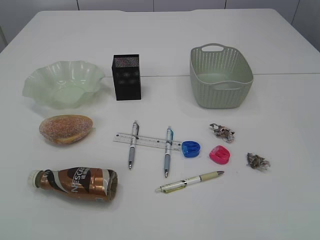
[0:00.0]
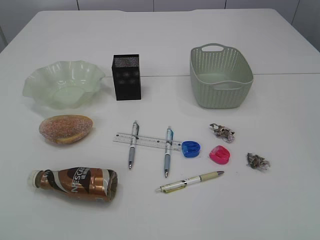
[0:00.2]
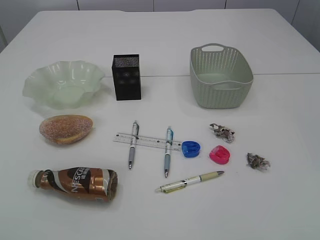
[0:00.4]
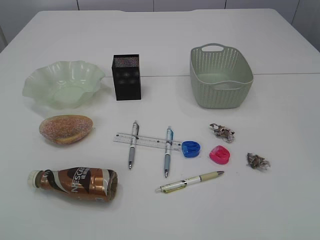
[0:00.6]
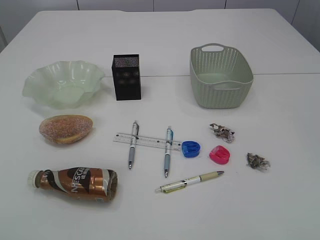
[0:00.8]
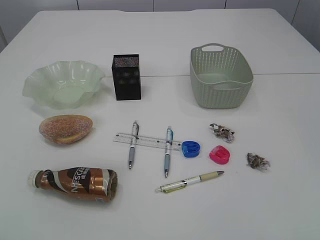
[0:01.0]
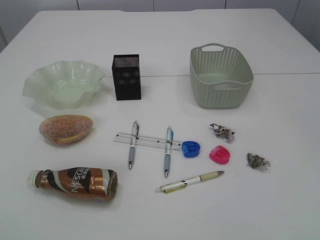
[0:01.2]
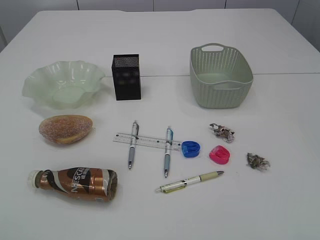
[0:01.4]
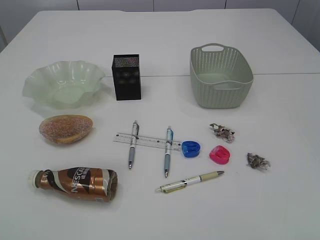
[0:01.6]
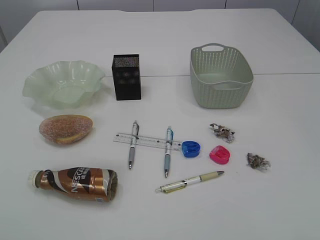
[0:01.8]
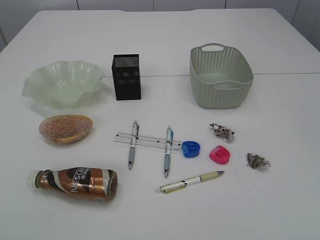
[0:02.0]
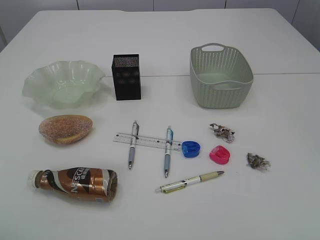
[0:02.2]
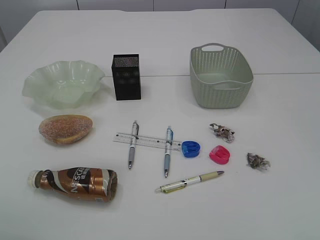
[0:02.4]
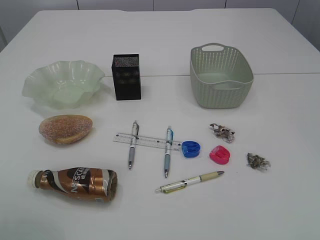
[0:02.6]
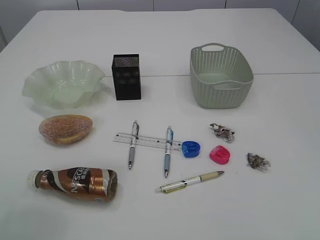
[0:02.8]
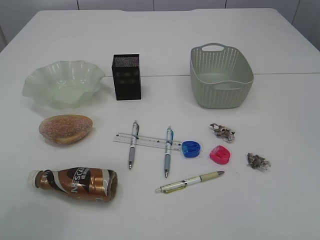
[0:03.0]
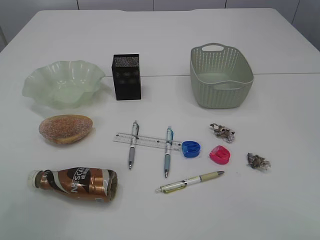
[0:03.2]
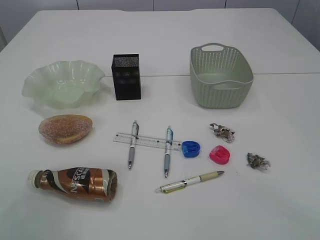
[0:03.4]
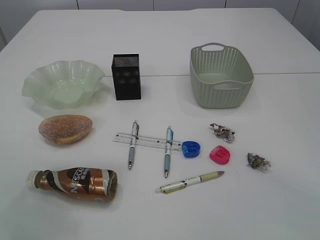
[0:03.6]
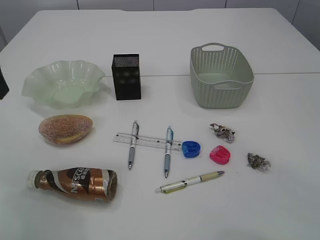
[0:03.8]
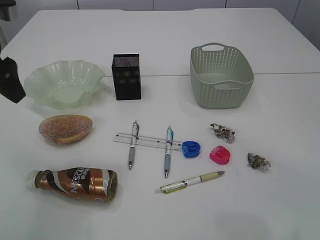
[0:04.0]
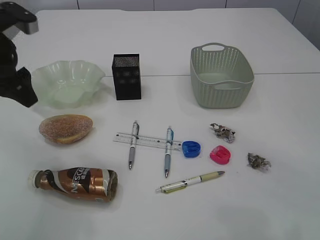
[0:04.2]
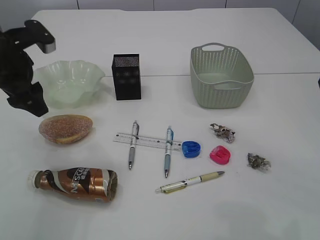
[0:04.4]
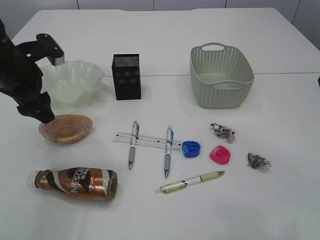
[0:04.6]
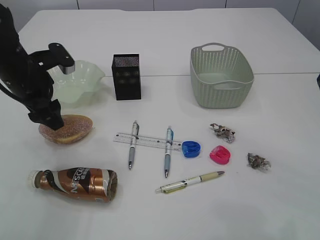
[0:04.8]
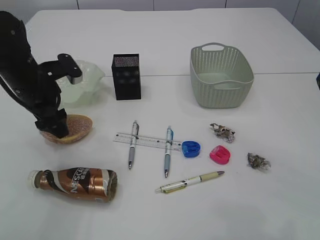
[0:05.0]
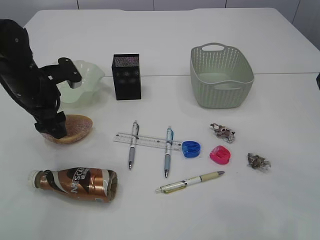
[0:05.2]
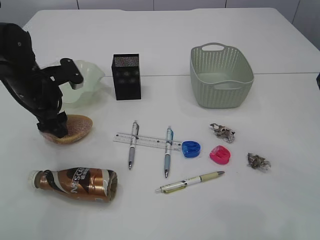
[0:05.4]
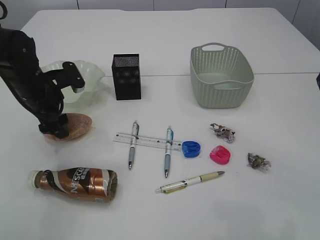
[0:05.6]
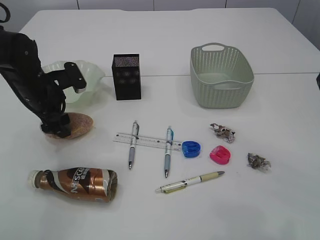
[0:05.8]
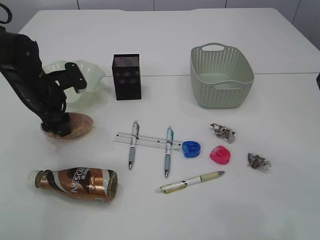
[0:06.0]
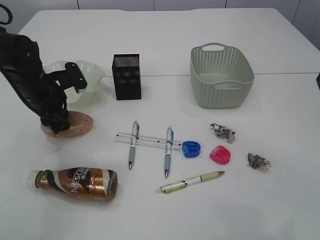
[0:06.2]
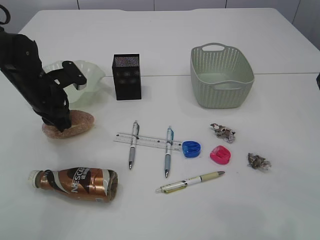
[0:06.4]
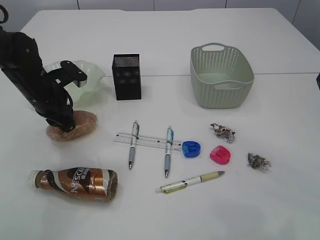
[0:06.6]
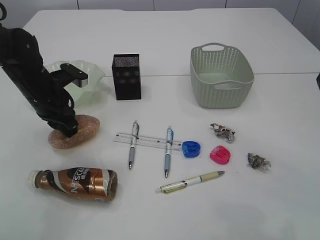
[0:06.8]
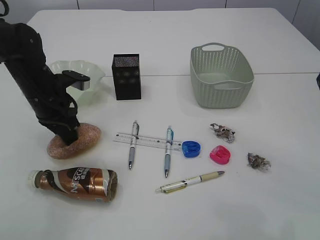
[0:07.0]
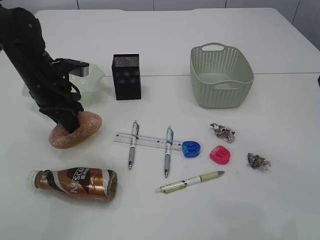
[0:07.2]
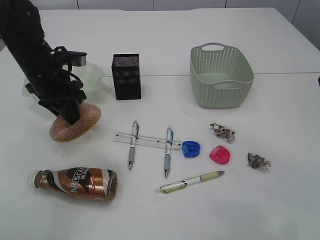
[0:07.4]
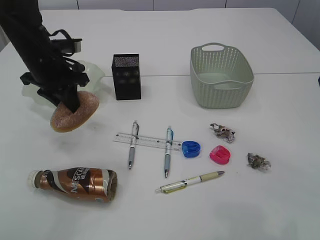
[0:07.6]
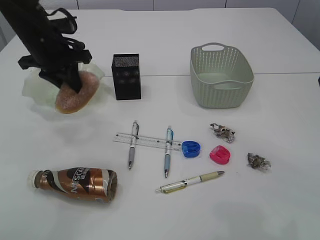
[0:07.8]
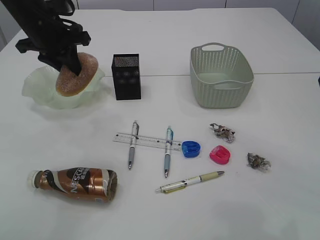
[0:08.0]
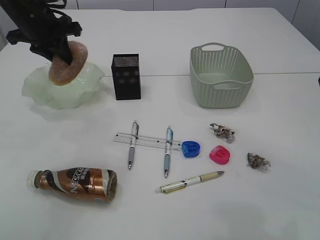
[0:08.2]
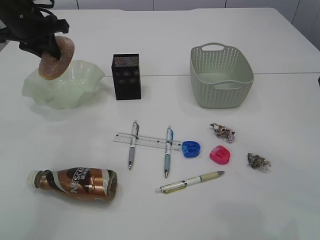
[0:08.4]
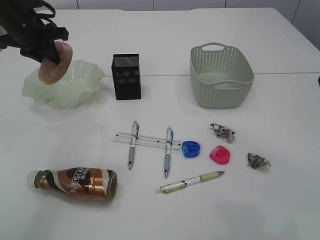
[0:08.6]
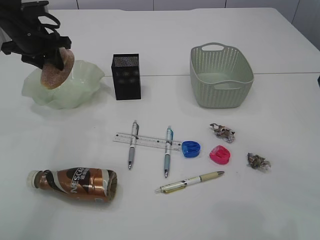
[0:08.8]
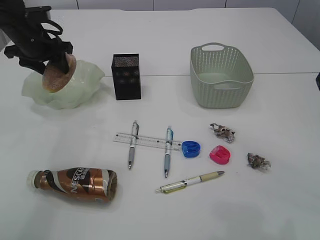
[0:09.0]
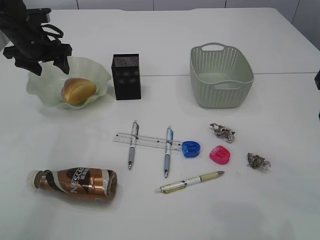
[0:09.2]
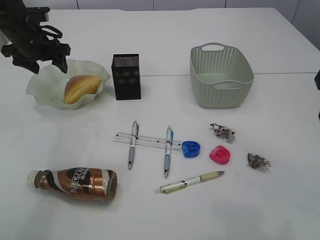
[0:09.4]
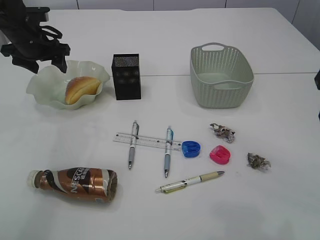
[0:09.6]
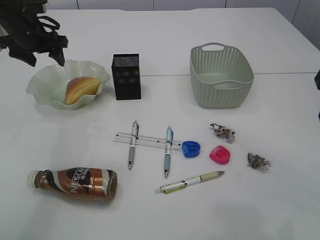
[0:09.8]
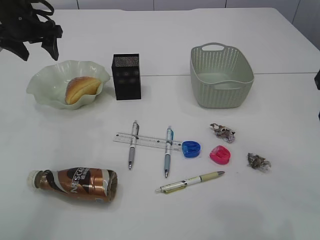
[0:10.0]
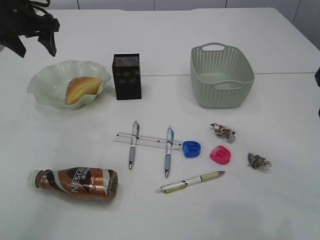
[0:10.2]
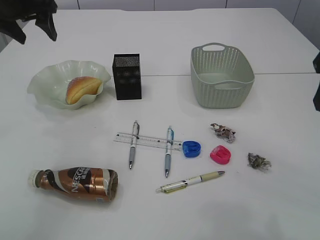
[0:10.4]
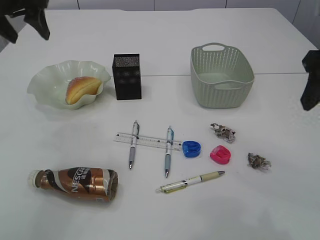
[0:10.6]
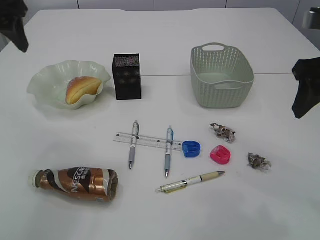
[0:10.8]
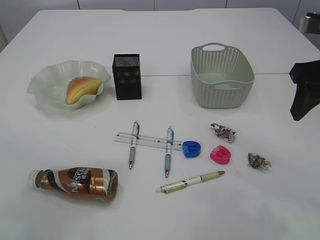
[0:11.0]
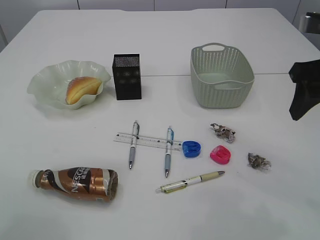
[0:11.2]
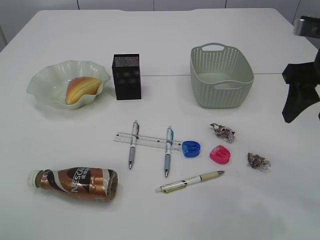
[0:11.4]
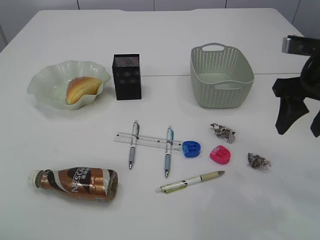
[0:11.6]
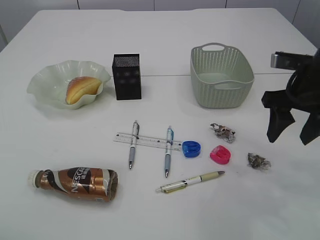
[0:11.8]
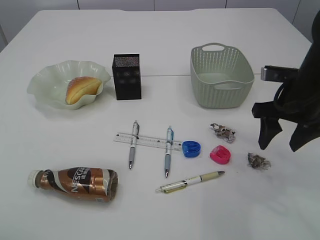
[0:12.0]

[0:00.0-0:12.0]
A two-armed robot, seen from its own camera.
Step, 0:07.8 to 0:10.0: place the bread in the plate.
0:01.6 to 0:03.0: The left gripper shifts roughly 20 cm forward.
0:03.0 to 0:04.4: The left gripper goes about 15 cm downward and forward.
0:04.4 to 0:06.0: The left gripper shifts approximately 10 cm downward.
0:06.0 to 0:07.6: The left gripper travels upward by about 5 cm, and closes.
0:07.6 to 0:09.0: The left gripper is displaced forward and to the left by approximately 10 cm, and opens its fingers.
0:09.0 to 0:10.4: The left gripper travels upward by some 10 cm.
0:10.4 to 0:12.0: The right gripper heads downward and forward, covering approximately 15 cm; the left gripper travels backward by about 30 cm.

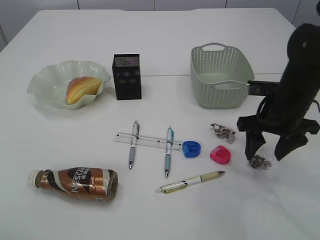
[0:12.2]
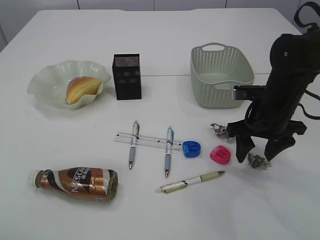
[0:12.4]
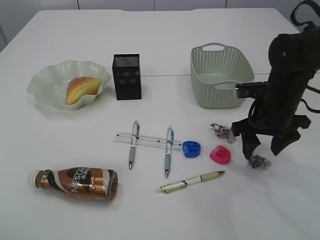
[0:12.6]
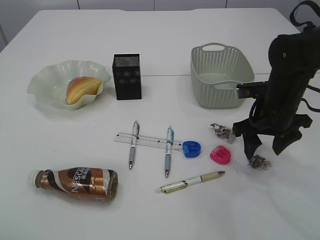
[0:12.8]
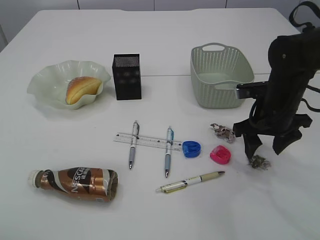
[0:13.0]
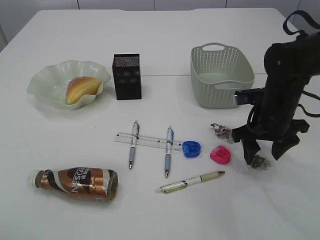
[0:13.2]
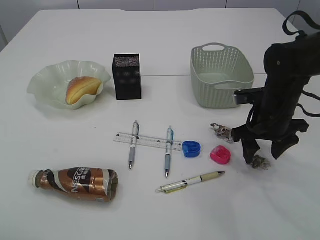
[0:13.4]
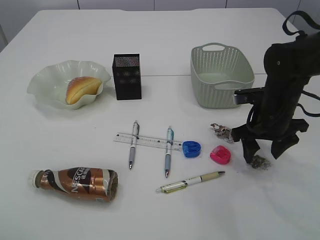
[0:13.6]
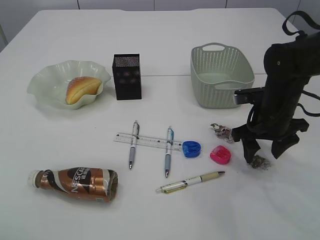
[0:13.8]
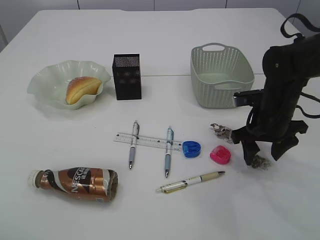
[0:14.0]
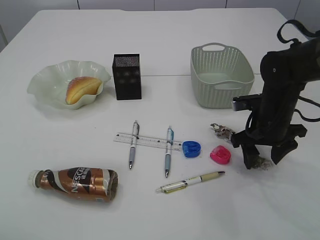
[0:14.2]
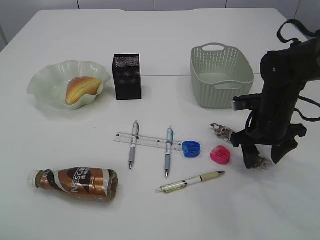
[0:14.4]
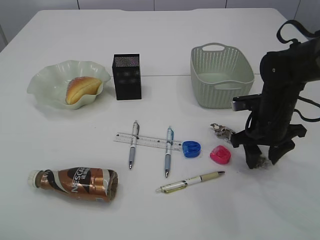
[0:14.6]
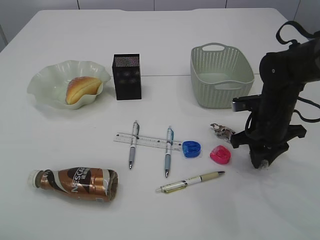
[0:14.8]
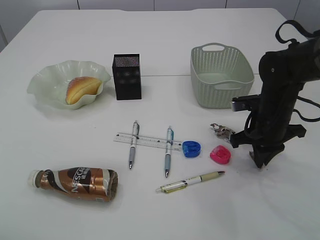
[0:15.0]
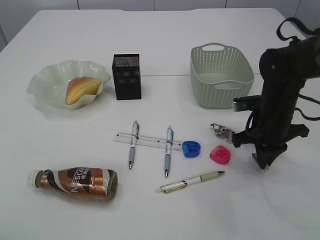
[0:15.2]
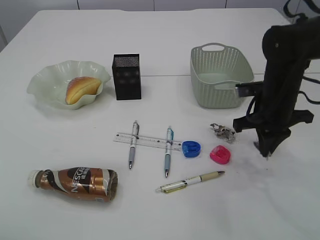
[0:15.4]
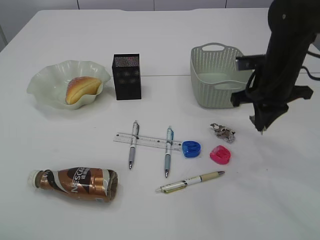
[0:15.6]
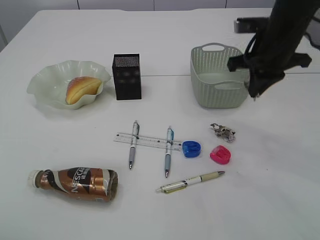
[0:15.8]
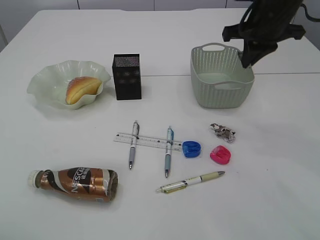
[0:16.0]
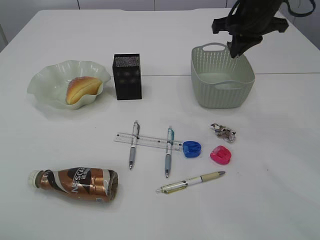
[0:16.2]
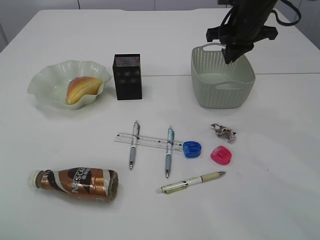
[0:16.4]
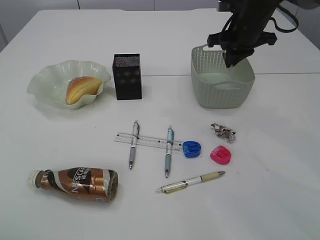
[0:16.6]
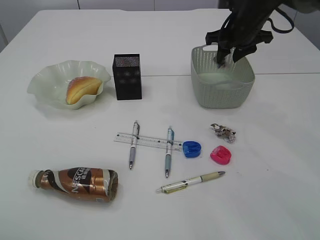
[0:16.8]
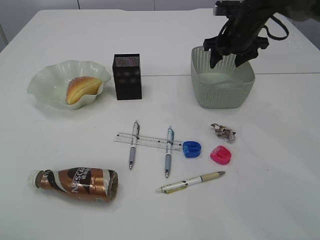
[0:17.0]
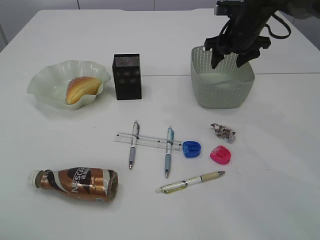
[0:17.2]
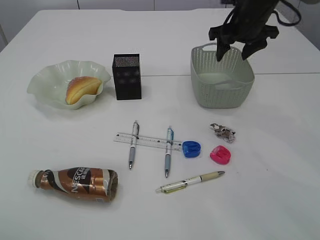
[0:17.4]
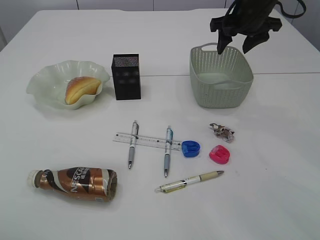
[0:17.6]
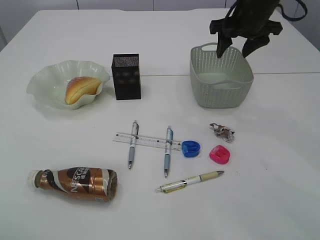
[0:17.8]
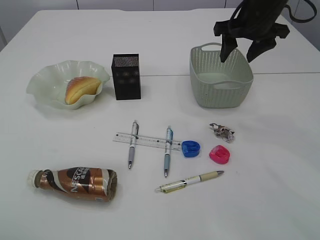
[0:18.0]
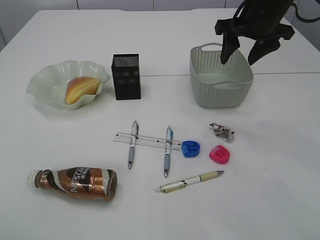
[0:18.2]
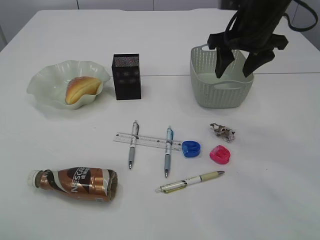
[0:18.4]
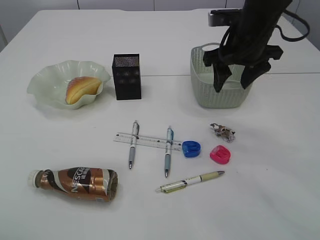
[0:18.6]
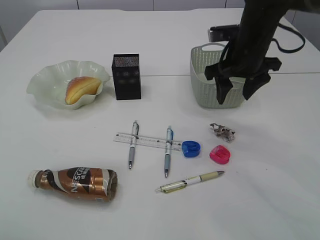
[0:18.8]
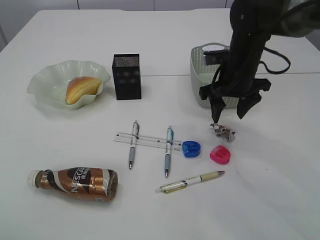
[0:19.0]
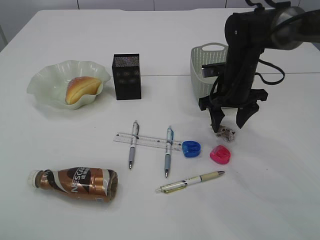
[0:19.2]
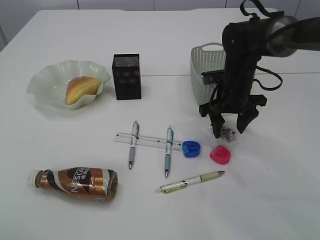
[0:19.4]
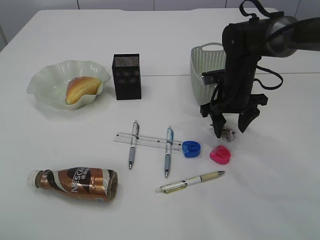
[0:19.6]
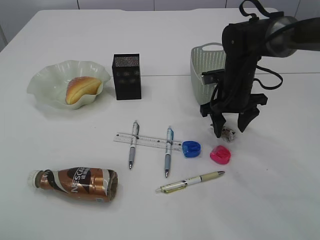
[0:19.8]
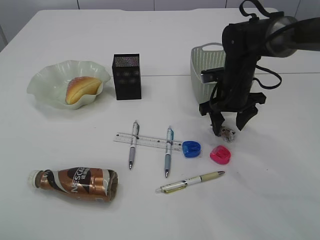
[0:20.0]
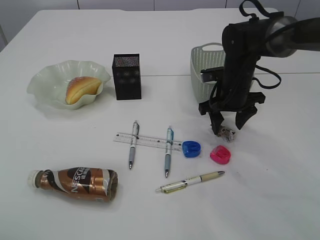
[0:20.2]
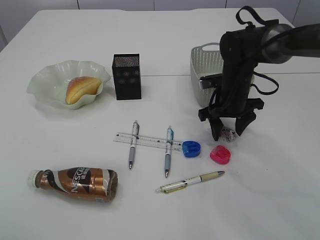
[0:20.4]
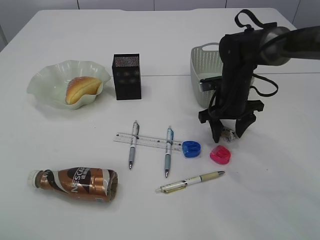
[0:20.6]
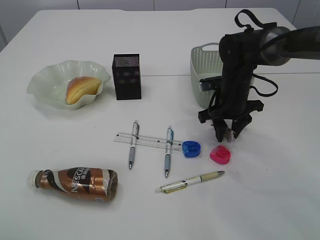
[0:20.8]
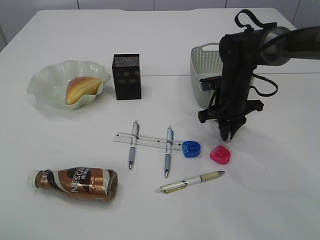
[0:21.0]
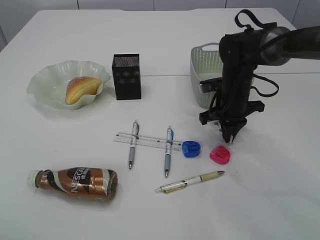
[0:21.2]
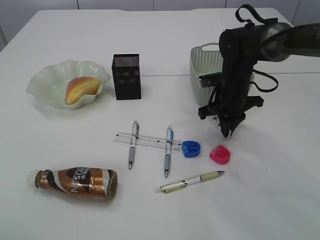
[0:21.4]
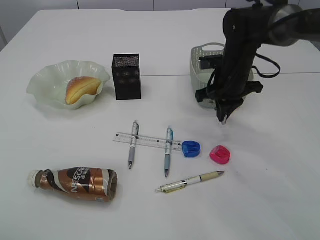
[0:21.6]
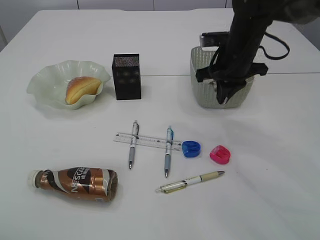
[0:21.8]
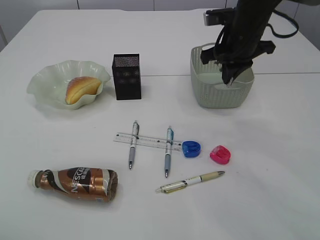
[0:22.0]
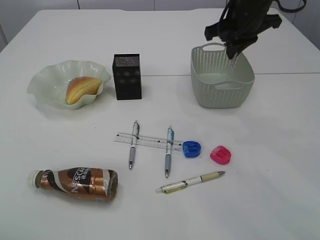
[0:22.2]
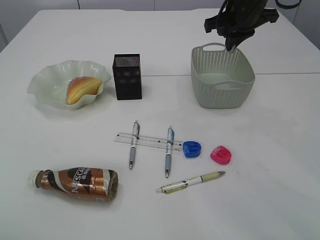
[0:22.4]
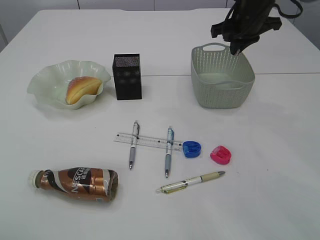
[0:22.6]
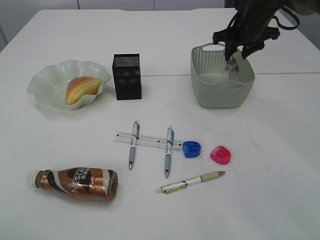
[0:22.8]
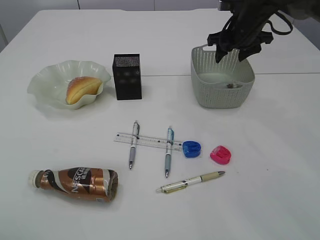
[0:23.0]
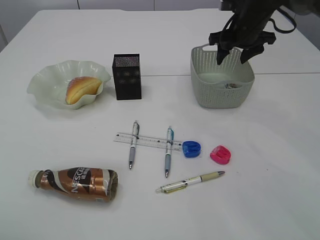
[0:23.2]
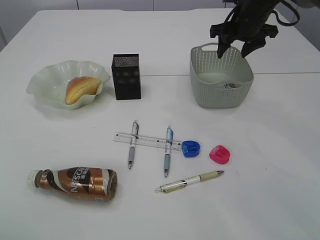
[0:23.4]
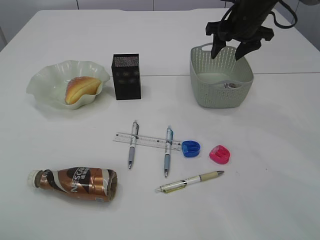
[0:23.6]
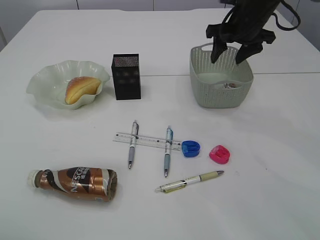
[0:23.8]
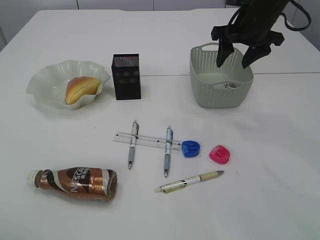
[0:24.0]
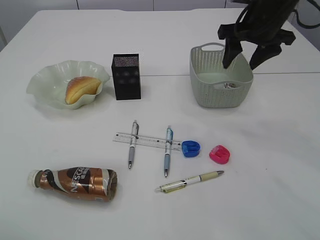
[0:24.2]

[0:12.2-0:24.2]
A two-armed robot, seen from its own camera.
Step, 0:12.2 to 0:15.4: Pick up the waste paper.
Step, 0:15.6 to 0:18.0: Place the waste paper in the basket.
Step, 0:18.2 to 0:21.6: Pick up the waste paper.
Step, 0:21.8 to 0:23.8: Place the waste paper in the basket.
0:12.2 to 0:13.8: There are only small adjustments of the grippers.
0:13.8 to 0:15.2: The right gripper closes its fingers.
0:15.2 to 0:16.6: The right gripper moves forward and upward, roughly 20 cm.
0:16.6 to 0:18.2: The right gripper goes approximately 5 cm backward, and opens its fingers.
0:18.2 to 0:19.8: The right gripper goes about 15 cm downward.
0:19.8 to 0:21.2: The right gripper closes.
0:21.2 to 0:22.6: The right gripper shifts approximately 15 cm upward and forward.
0:22.6 to 0:24.2: The right gripper is displaced backward by roughly 5 cm, and opens up.
